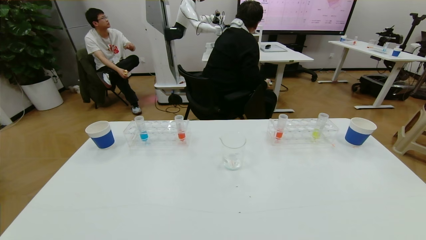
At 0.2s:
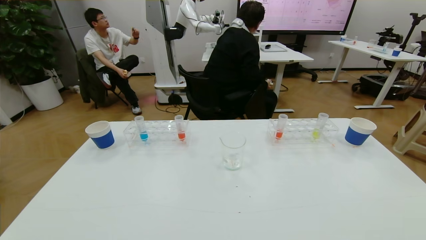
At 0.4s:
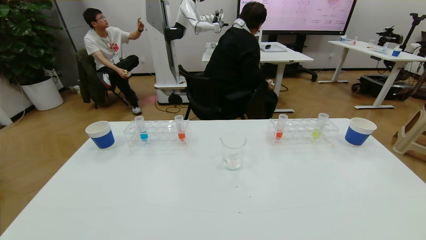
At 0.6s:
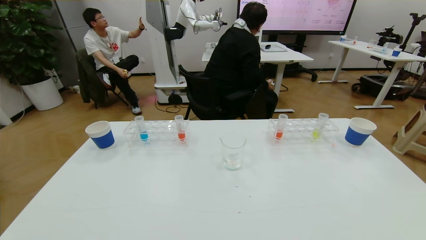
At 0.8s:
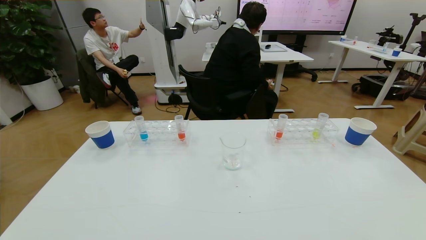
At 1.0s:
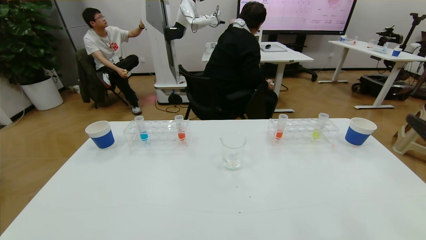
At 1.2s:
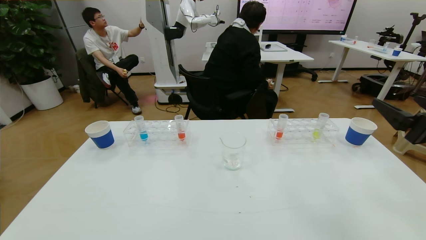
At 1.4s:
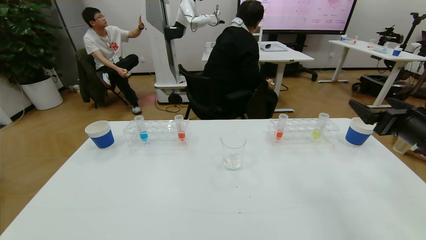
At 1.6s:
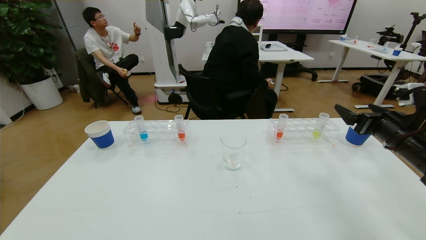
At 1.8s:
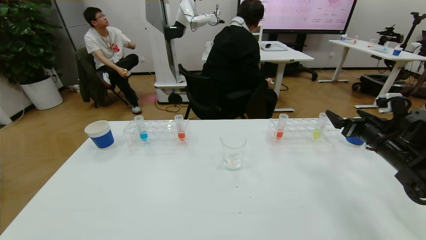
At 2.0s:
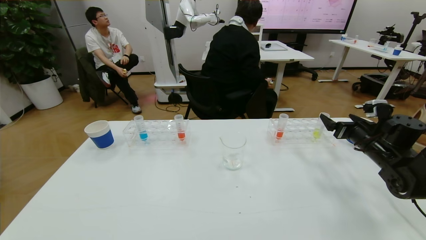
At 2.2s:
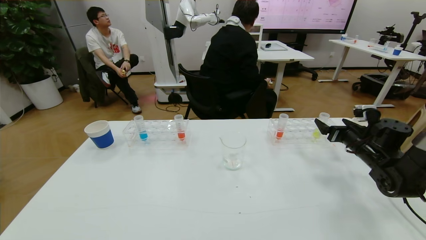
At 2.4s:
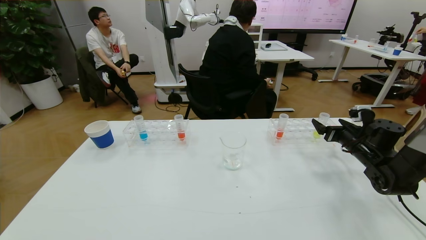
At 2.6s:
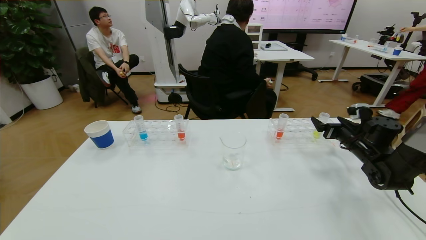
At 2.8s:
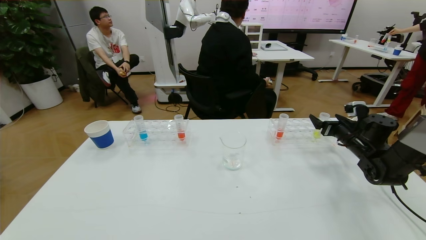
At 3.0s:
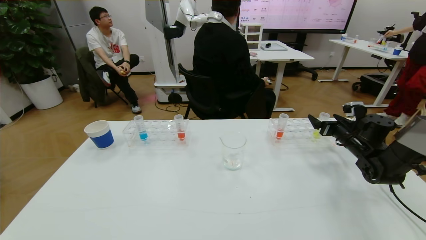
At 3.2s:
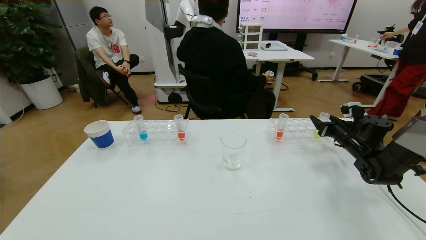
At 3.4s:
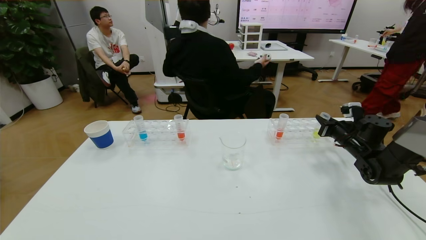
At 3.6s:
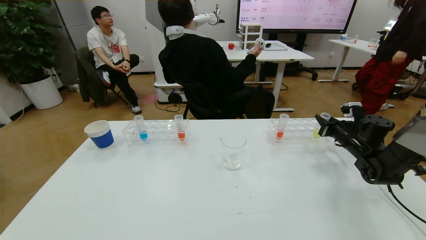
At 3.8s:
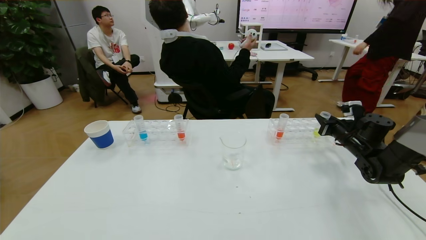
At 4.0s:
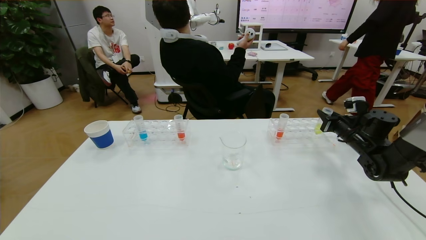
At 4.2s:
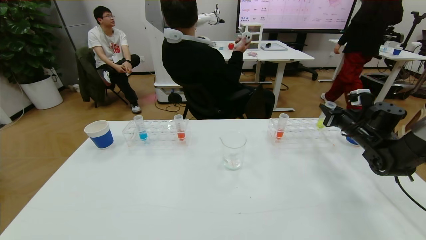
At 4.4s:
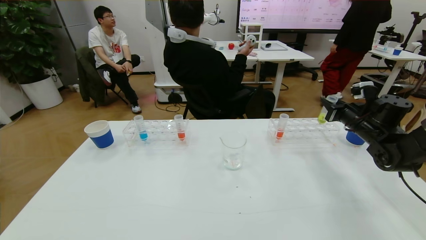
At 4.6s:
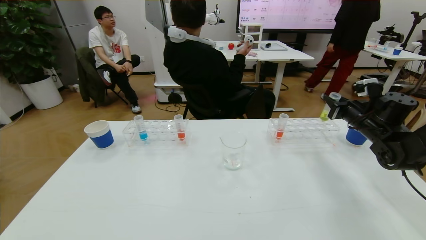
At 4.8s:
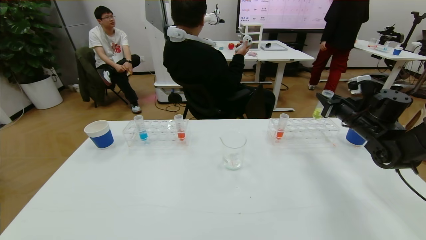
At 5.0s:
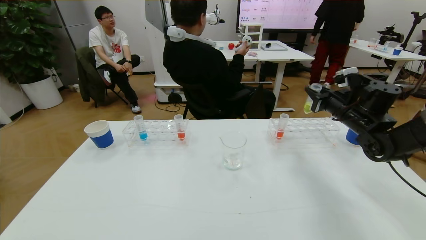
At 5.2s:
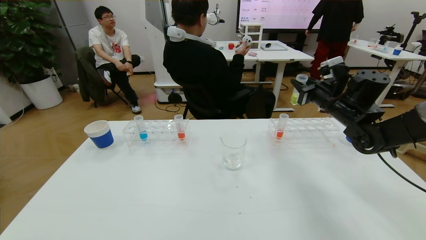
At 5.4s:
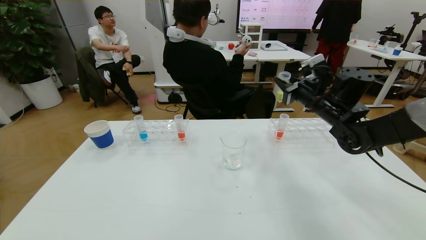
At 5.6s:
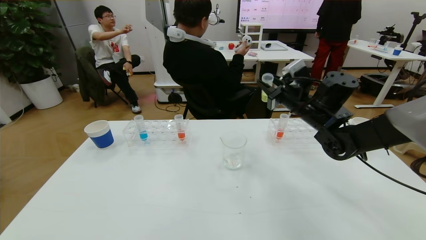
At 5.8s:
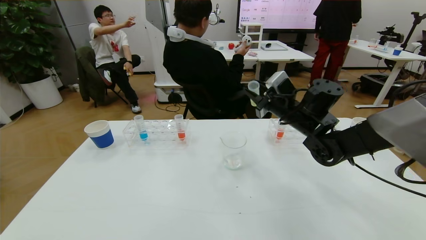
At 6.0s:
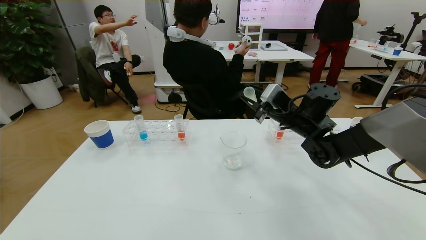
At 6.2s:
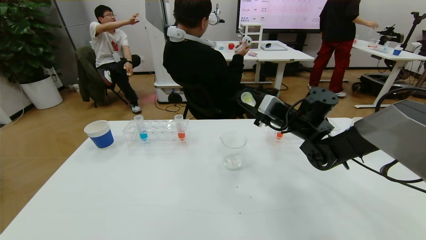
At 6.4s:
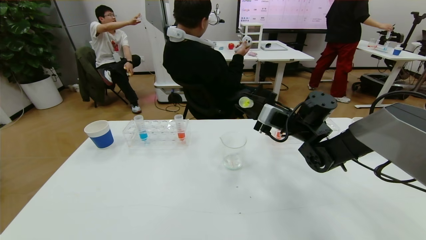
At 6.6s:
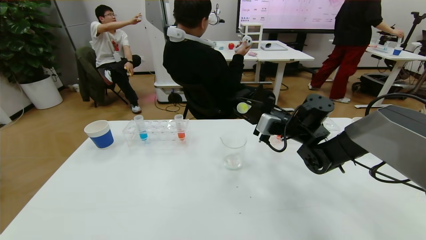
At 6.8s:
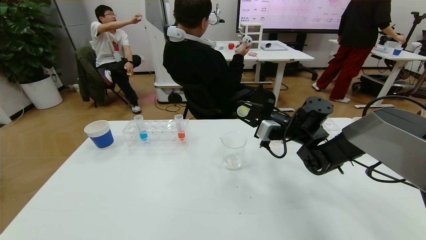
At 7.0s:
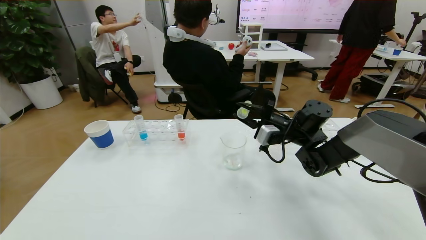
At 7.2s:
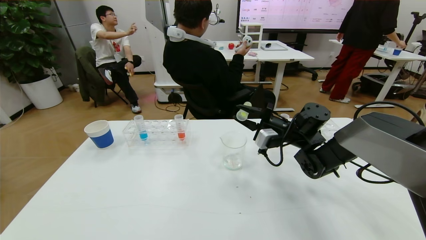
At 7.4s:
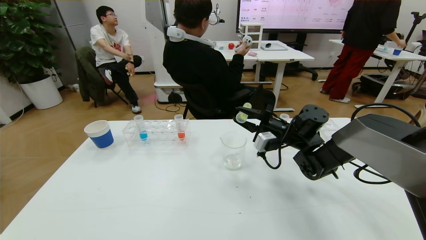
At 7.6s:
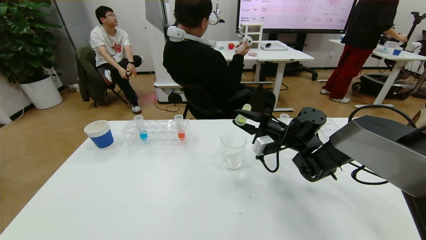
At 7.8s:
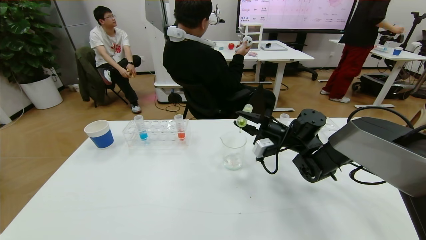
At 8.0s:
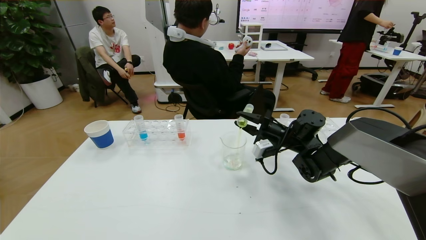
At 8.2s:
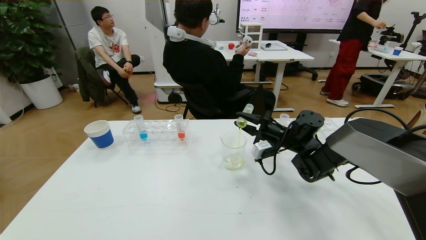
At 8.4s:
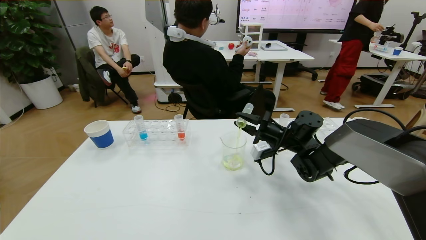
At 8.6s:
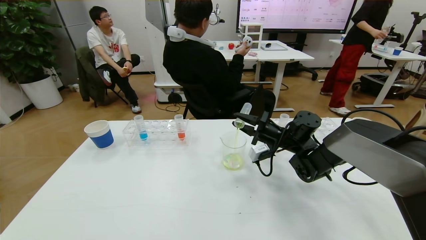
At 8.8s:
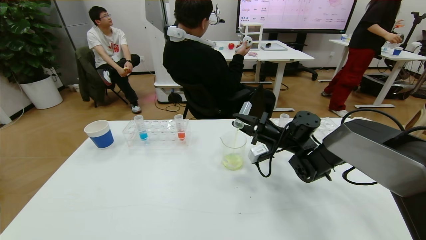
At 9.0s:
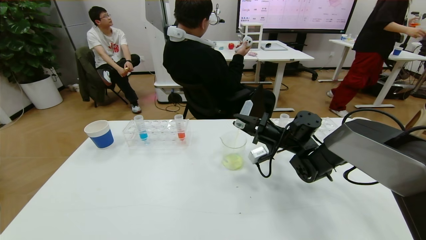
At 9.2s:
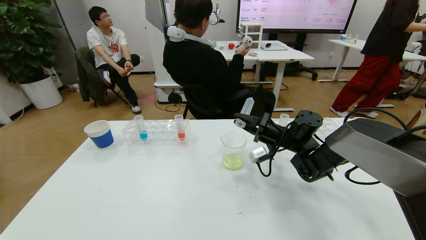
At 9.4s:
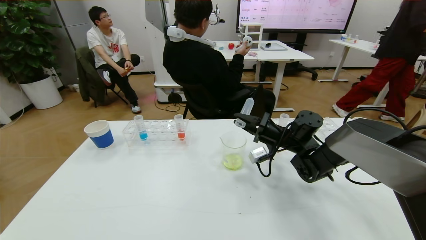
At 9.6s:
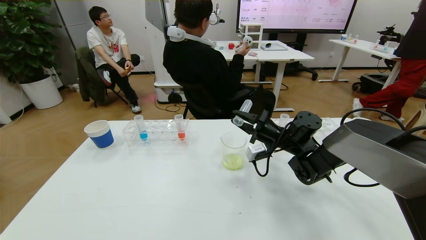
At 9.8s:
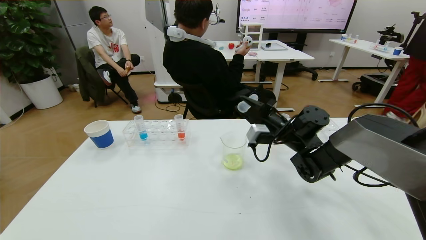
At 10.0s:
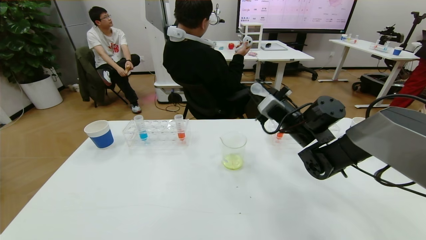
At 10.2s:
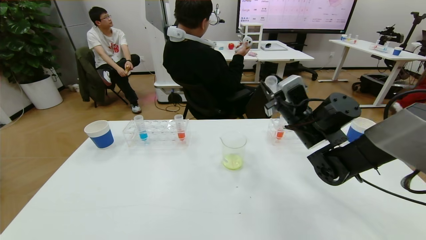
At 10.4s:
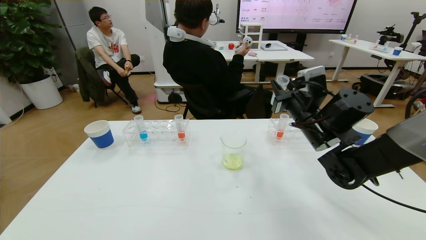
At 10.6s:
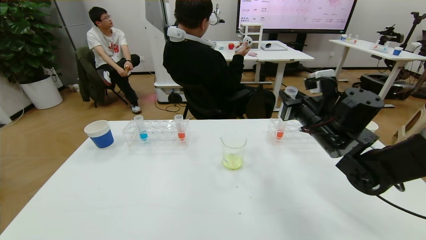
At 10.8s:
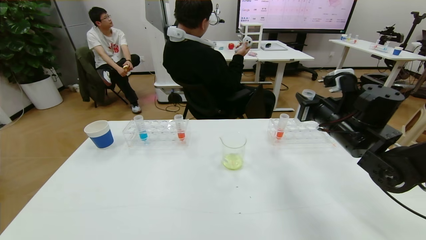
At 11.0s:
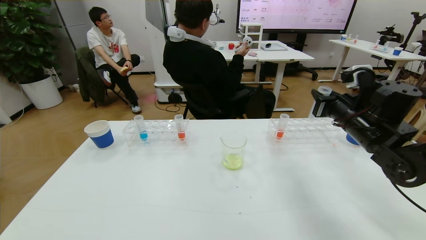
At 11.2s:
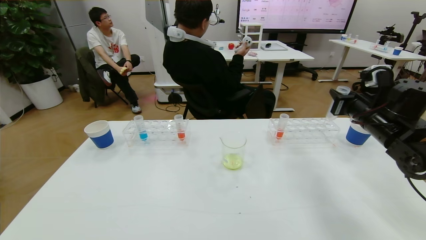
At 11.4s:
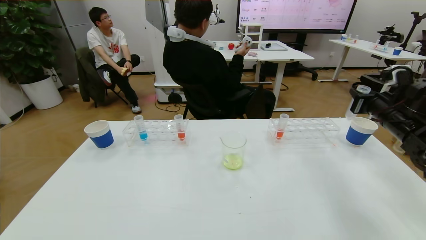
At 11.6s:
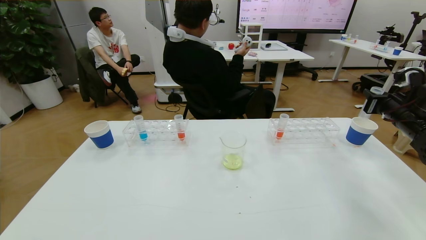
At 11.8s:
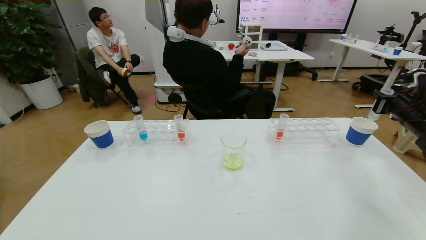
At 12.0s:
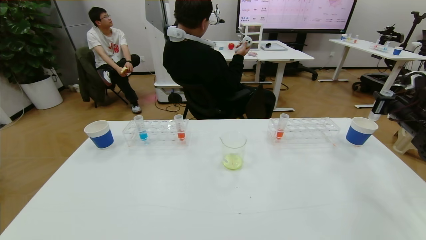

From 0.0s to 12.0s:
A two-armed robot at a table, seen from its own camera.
Task of the whole recording: pick up the test tube with yellow pigment and the test tube with blue pigment by grippers and pour them into the beaker.
From 0.0s to 1.6s: The right gripper goes some 35 cm forward.
From 1.6s to 3.0s: The right gripper heads forward and downward, covering roughly 15 cm.
From 3.0s to 4.4s: The right gripper heads upward, covering roughly 5 cm, and closes its fingers.
From 4.4s to 6.0s: The right gripper heads to the left, covering some 20 cm.
From 6.0s to 7.6s: The right gripper goes roughly 5 cm downward.
From 9.0s to 10.4s: The right gripper is displaced upward and backward by approximately 10 cm.
From 10.4s to 12.0s: The right gripper heads to the right, covering approximately 25 cm.

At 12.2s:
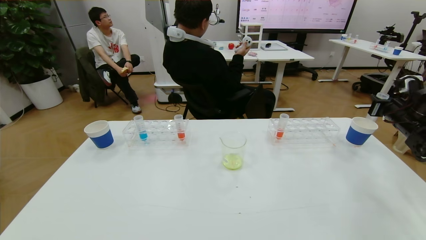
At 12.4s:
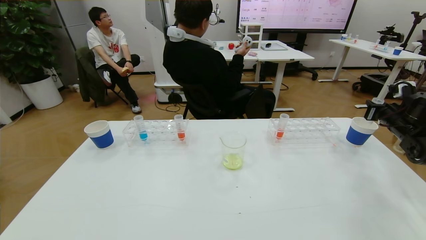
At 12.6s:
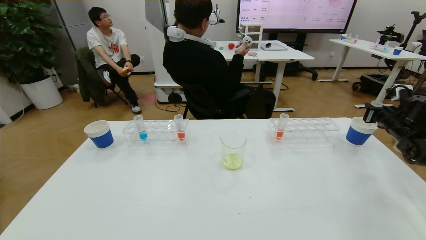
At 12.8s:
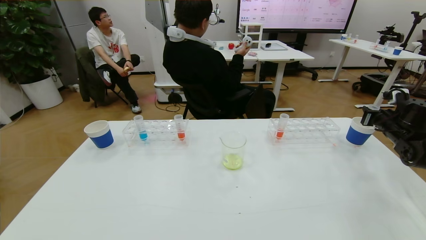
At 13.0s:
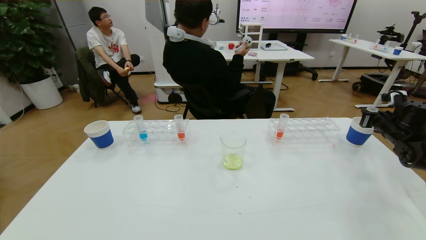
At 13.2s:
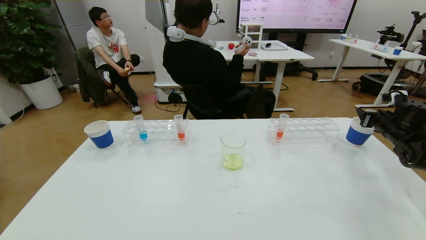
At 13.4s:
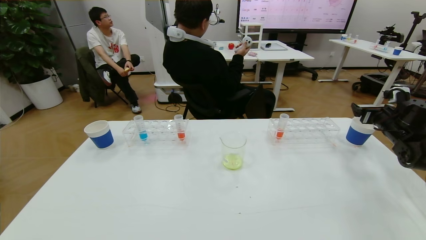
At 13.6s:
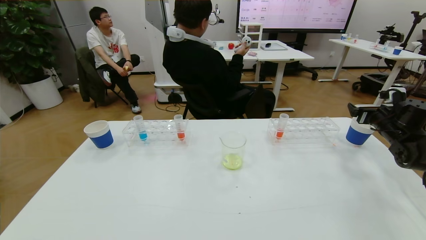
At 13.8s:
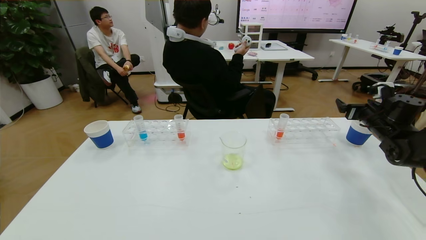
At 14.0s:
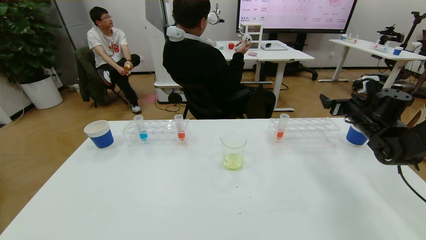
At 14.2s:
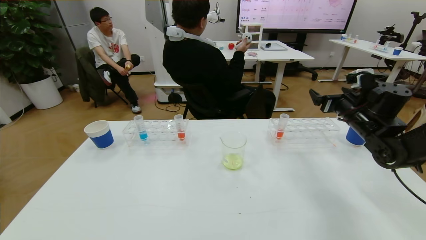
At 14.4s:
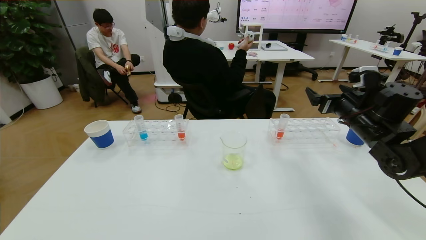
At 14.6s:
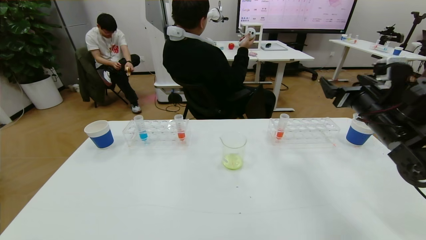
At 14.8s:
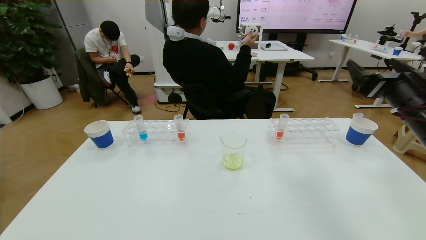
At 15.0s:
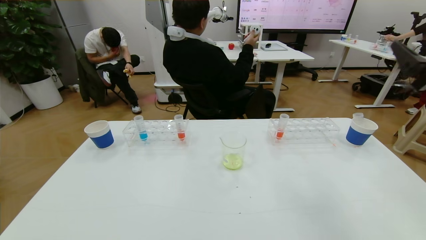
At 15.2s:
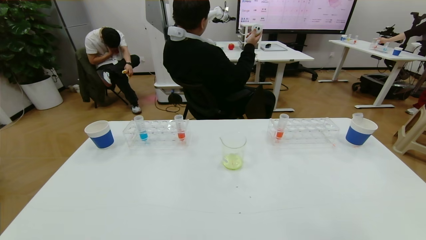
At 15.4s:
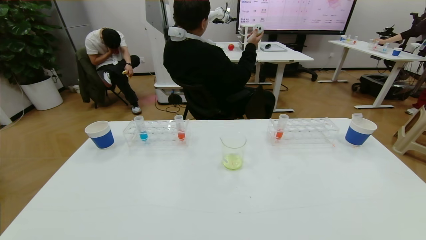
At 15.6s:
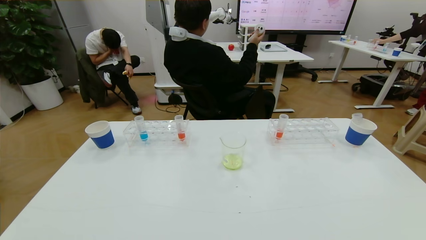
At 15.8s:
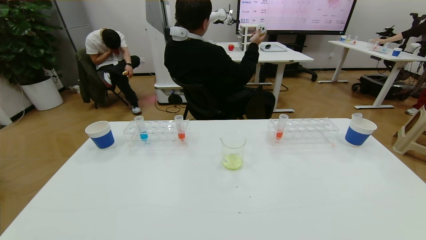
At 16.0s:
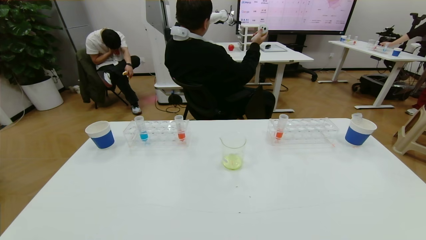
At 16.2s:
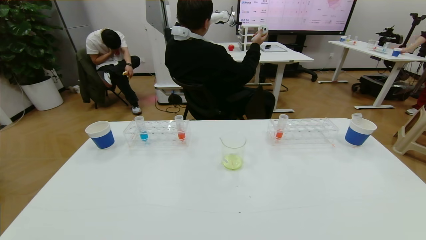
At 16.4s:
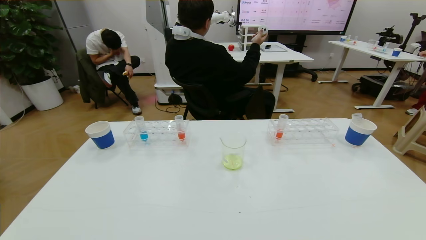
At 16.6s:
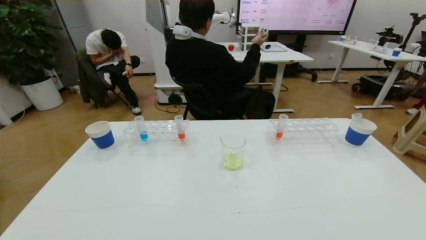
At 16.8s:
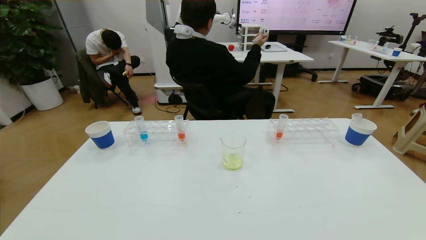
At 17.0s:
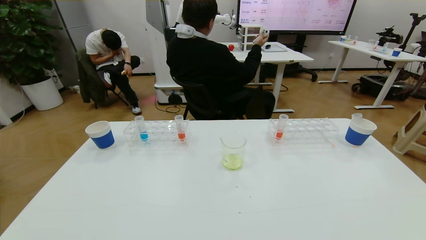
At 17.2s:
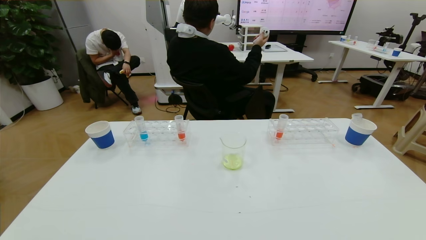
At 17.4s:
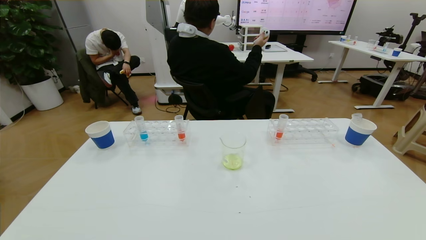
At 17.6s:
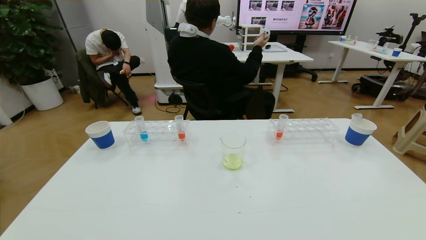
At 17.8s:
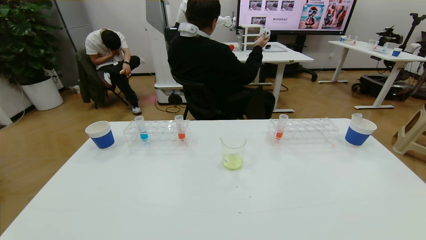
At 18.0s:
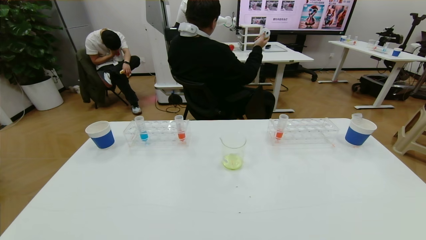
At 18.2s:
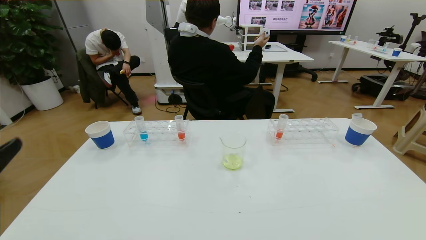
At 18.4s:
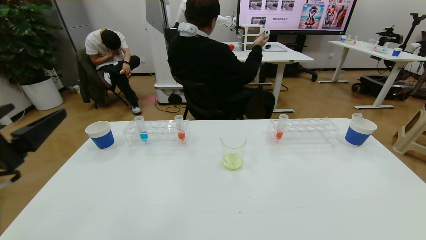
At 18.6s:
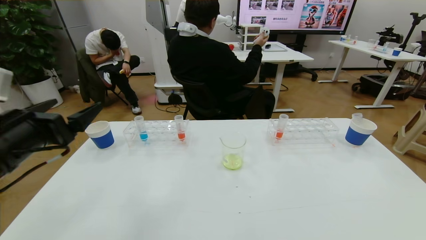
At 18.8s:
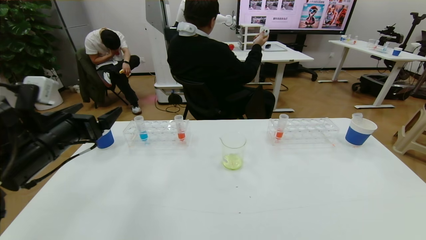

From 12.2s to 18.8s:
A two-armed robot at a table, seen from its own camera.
Task of the whole recording: pick up the test tube with yellow pigment and the test tube with blue pigment by grippers and pour them into the beaker.
Step, from 12.2s to 17.4s: Pour the yellow reagent into the graduated cylinder and place the test tube into the paper cup.
From 12.2s to 13.8s: The right gripper shifts by approximately 5 cm, and opens up.
From 13.8s to 15.4s: The right gripper travels backward by approximately 40 cm.
From 15.4s to 17.2s: The right gripper goes about 20 cm downward.
From 17.2s to 18.8s: The left gripper travels forward and upward by about 30 cm.
